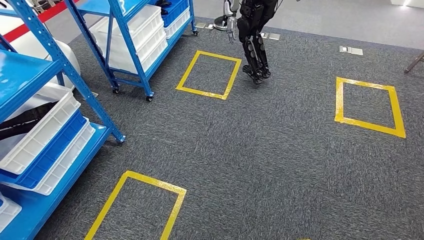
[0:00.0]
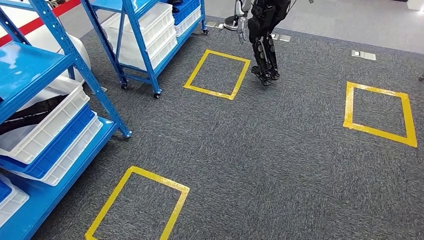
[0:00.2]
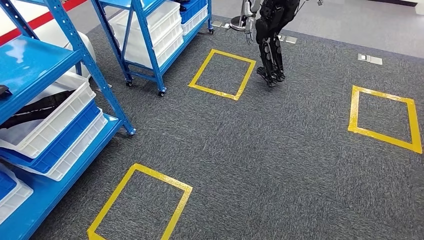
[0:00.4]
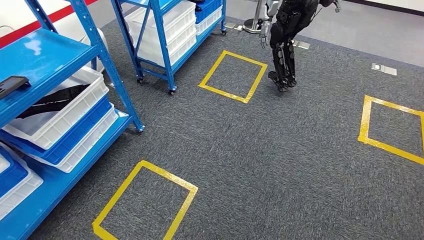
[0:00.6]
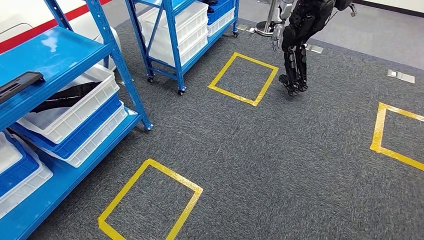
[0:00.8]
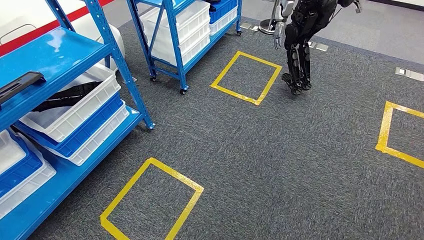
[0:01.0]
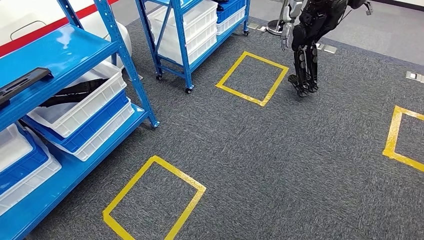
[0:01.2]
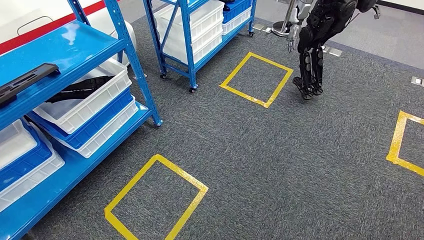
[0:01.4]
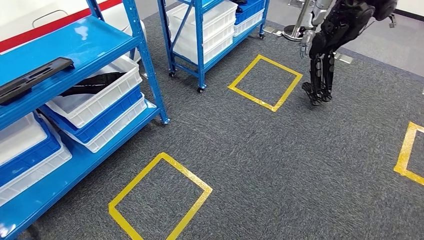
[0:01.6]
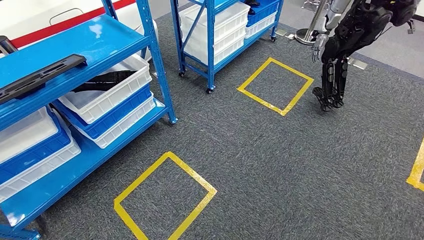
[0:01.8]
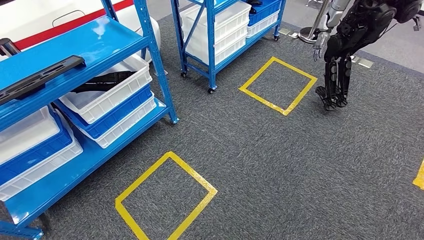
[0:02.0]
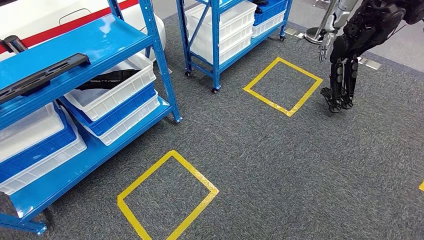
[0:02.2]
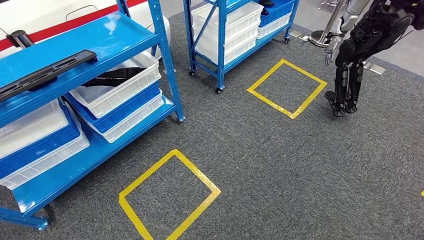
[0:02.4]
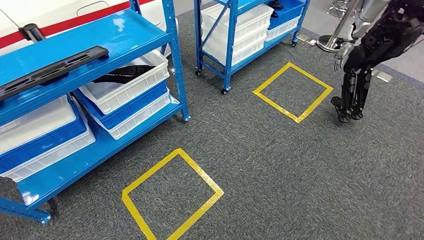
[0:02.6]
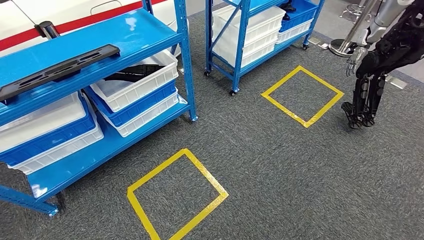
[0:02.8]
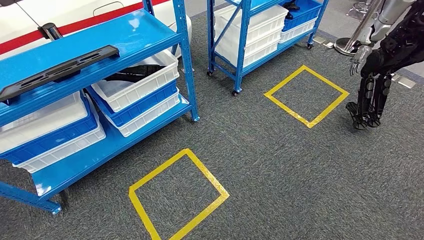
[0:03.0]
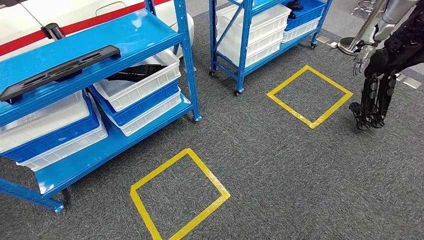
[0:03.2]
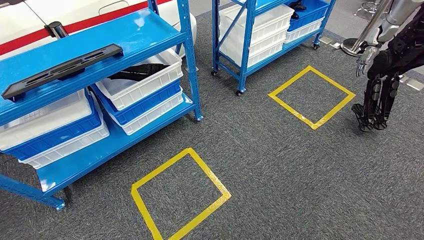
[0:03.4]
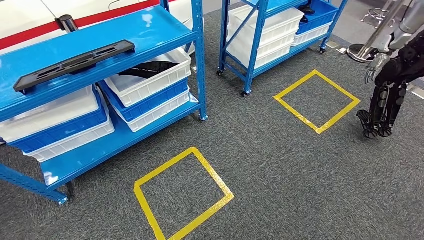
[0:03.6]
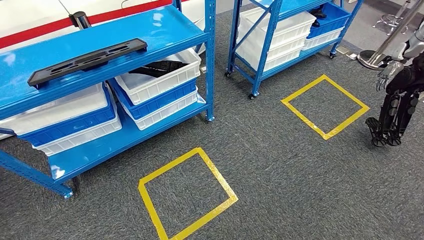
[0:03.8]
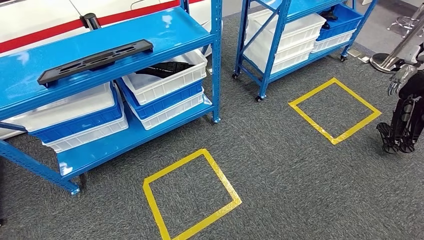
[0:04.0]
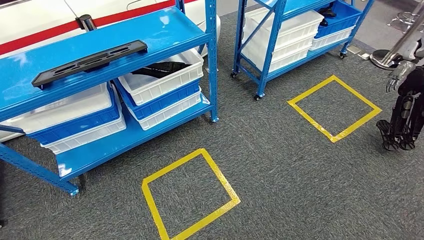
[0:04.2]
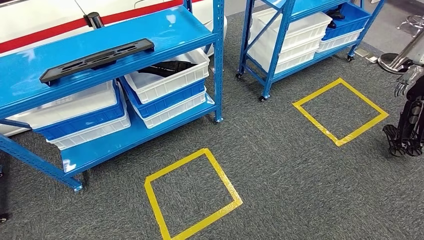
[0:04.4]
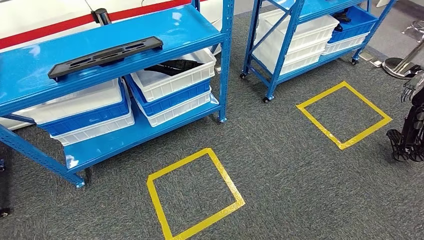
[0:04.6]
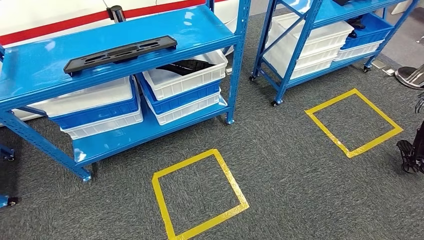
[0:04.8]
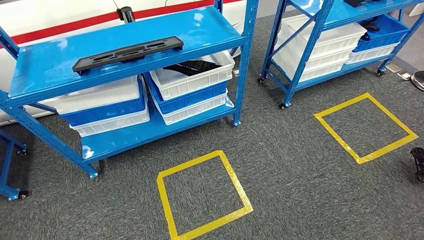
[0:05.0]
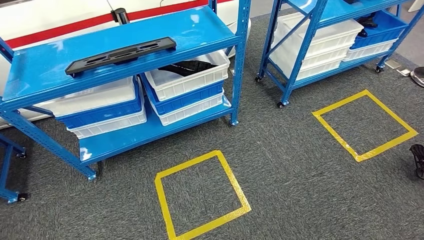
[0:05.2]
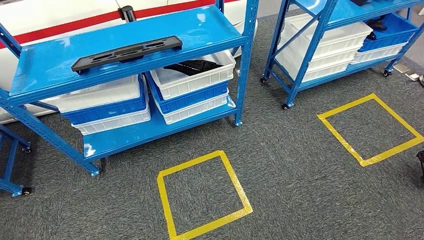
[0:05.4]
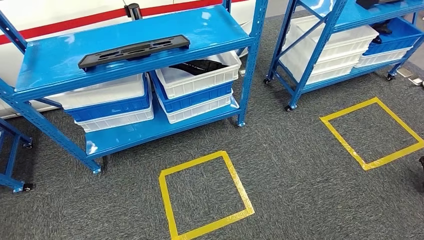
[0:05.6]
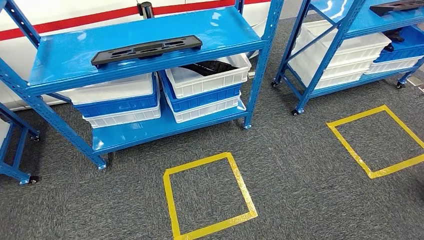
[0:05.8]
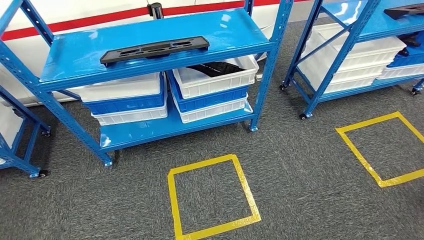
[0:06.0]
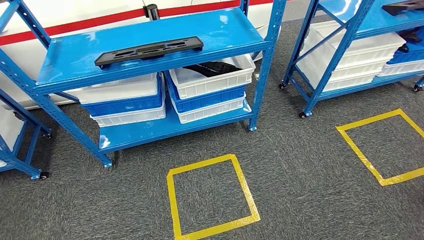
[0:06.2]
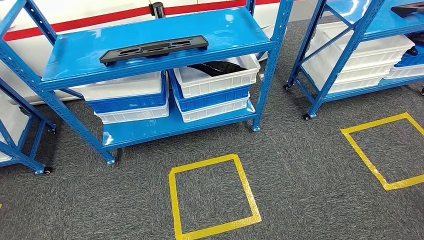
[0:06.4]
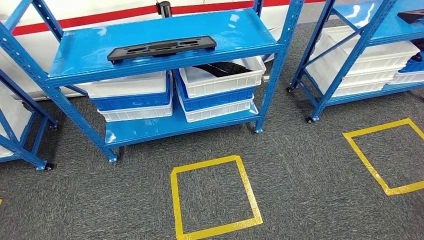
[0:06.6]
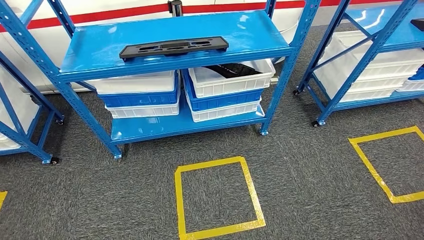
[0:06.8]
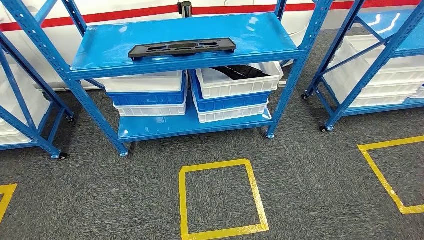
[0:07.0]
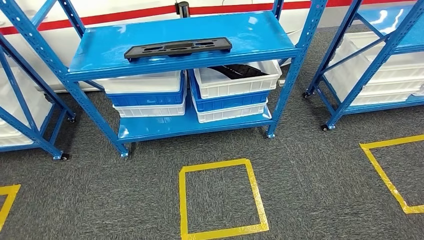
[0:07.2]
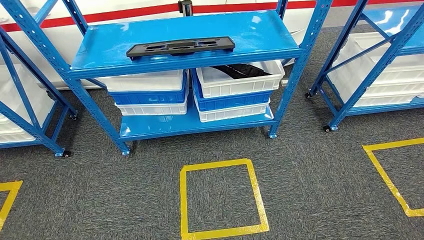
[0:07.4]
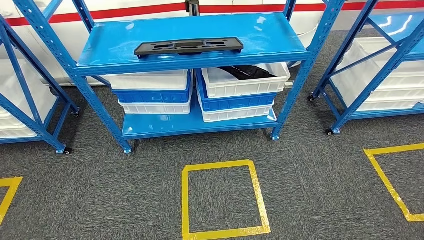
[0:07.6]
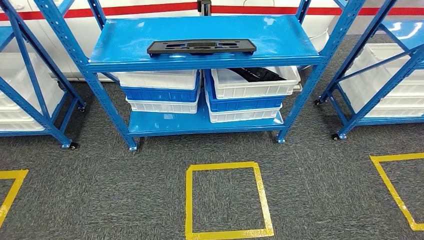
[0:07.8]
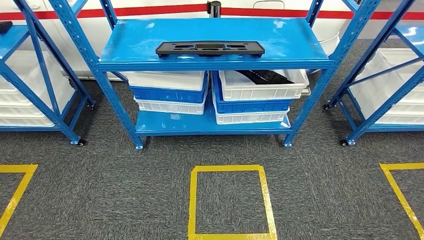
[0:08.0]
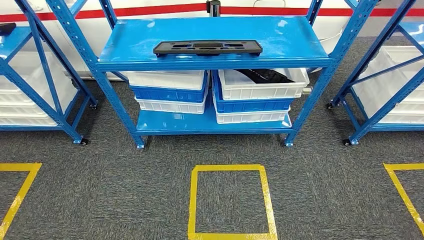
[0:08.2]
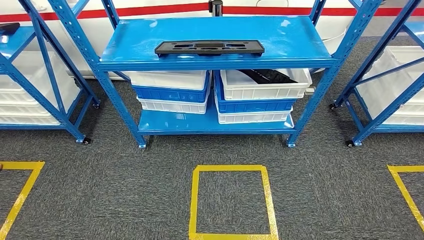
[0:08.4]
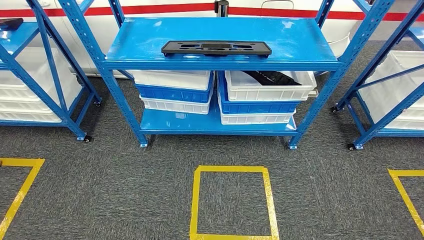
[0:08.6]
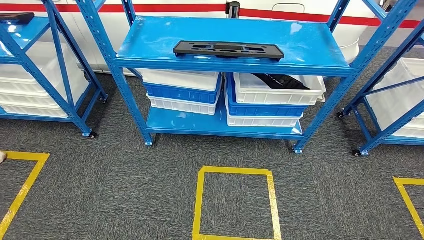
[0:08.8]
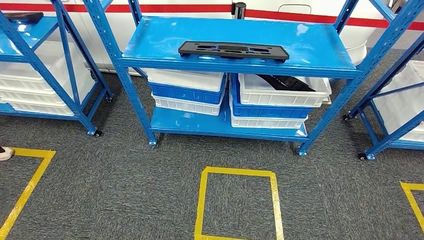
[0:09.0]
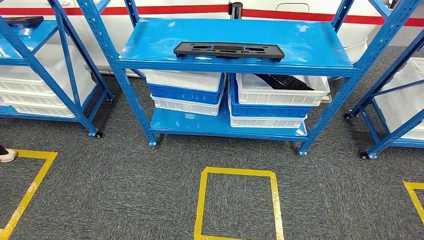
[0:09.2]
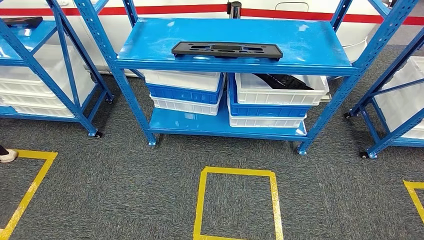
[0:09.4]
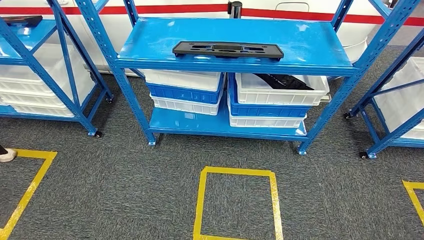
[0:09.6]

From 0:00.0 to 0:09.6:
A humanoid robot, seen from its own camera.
Step, from 0:00.0 to 0:09.6: Move to the initial position of the shelf.

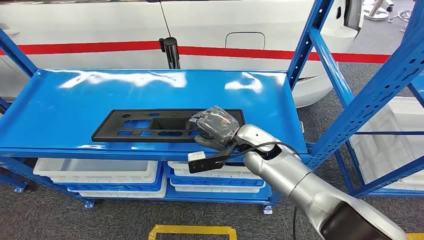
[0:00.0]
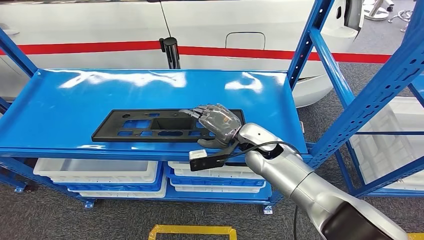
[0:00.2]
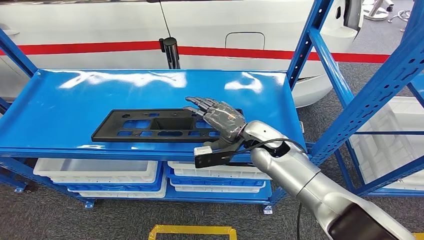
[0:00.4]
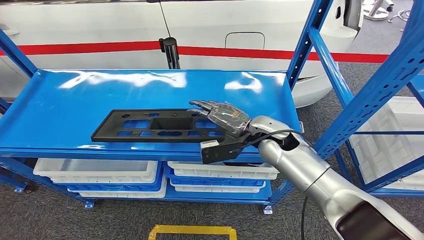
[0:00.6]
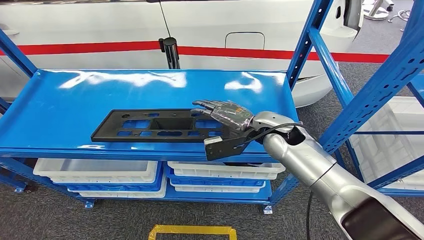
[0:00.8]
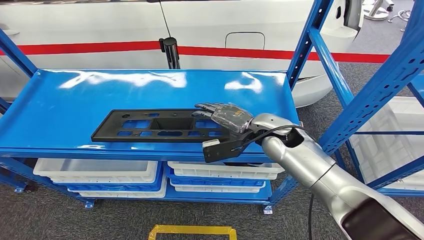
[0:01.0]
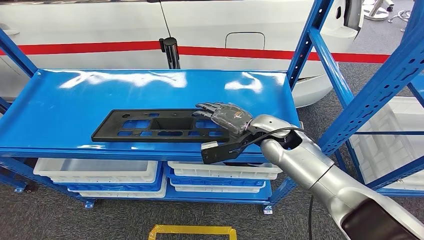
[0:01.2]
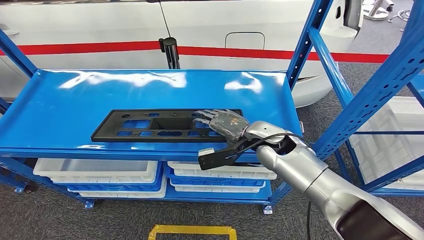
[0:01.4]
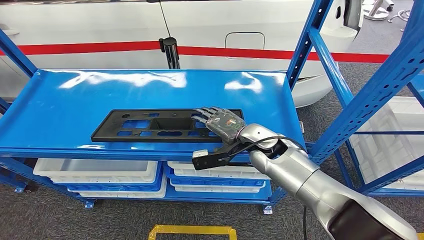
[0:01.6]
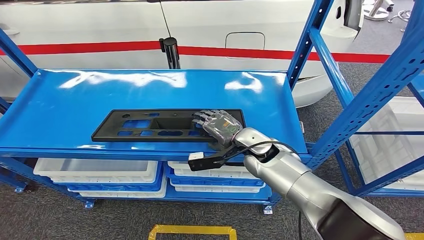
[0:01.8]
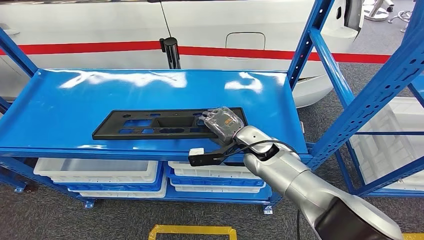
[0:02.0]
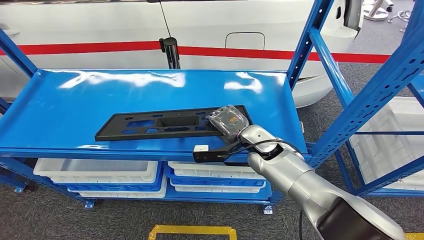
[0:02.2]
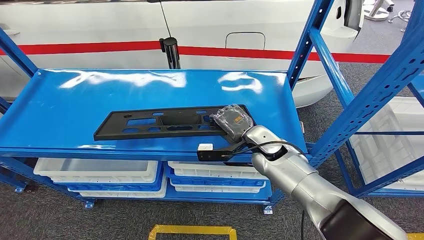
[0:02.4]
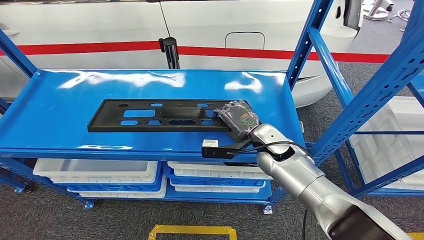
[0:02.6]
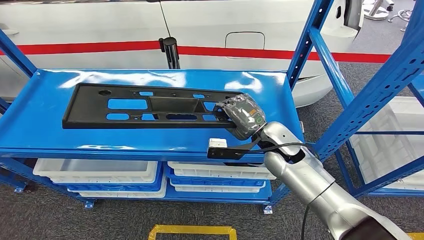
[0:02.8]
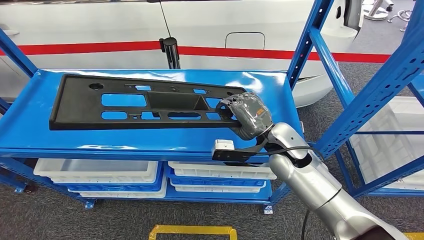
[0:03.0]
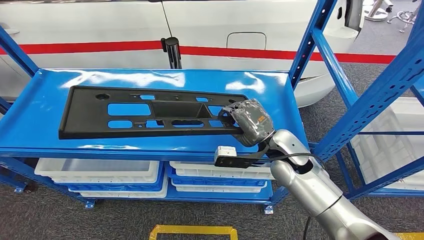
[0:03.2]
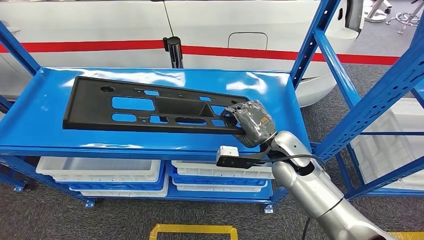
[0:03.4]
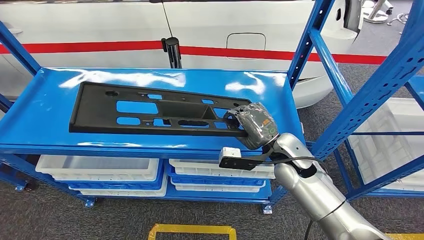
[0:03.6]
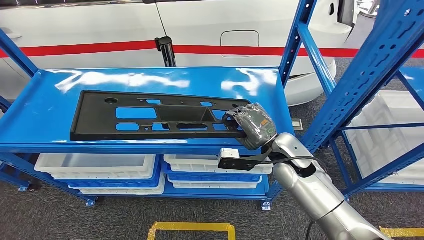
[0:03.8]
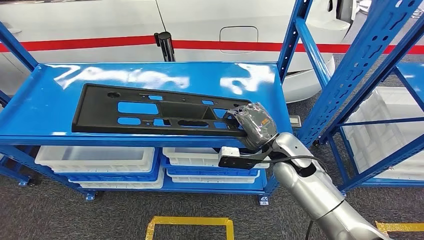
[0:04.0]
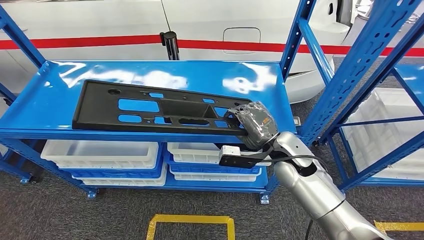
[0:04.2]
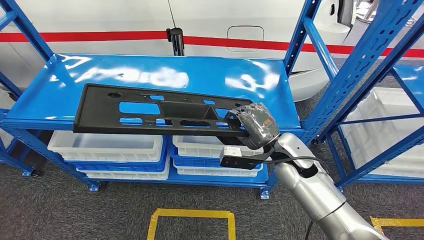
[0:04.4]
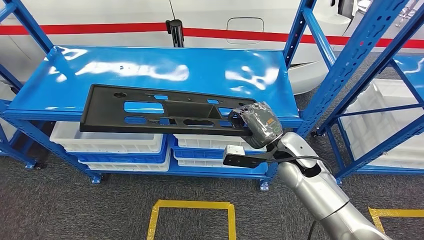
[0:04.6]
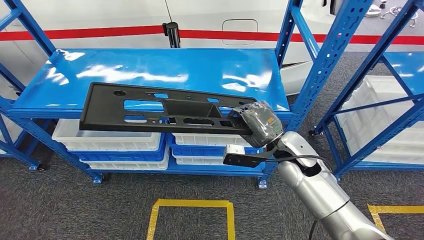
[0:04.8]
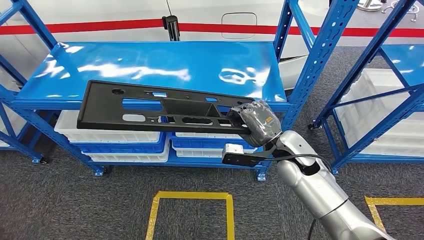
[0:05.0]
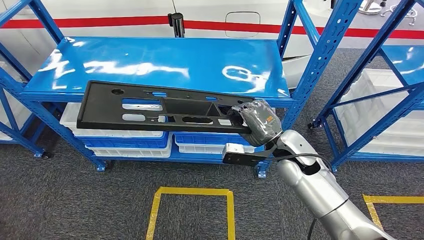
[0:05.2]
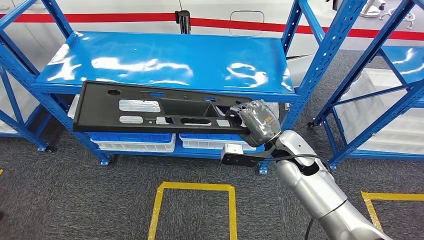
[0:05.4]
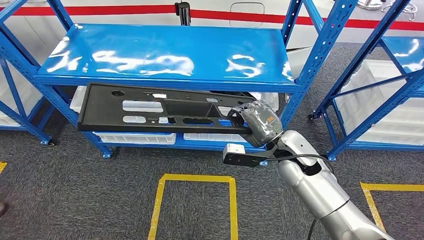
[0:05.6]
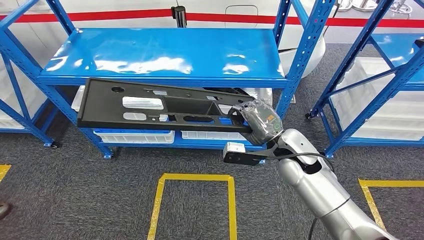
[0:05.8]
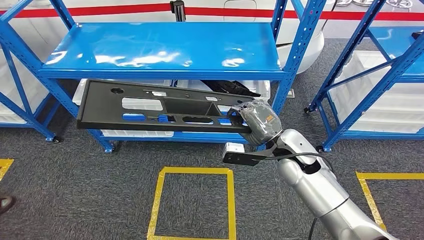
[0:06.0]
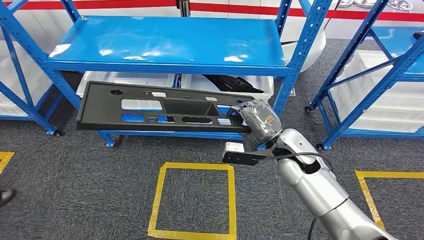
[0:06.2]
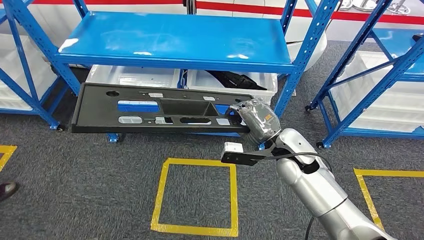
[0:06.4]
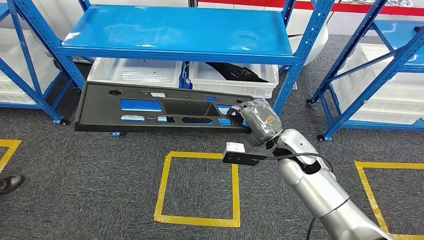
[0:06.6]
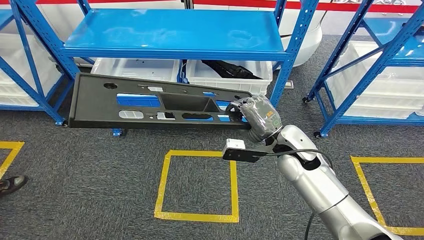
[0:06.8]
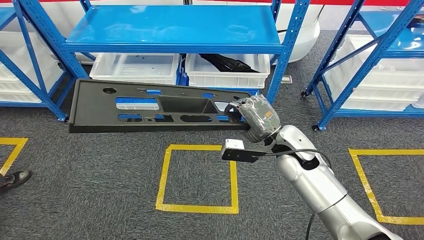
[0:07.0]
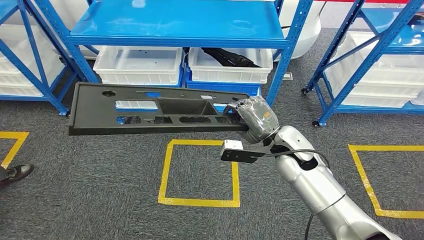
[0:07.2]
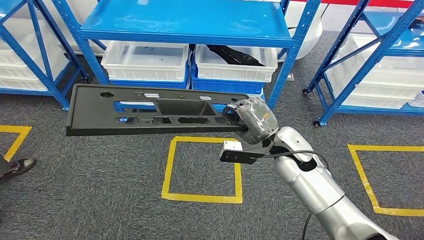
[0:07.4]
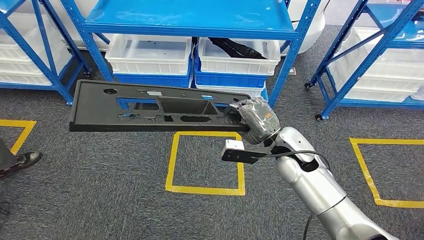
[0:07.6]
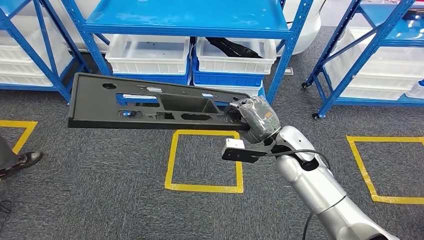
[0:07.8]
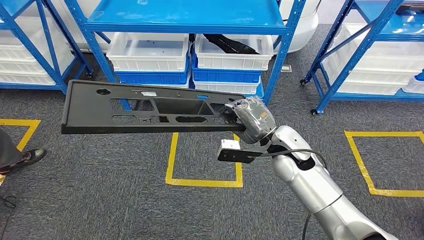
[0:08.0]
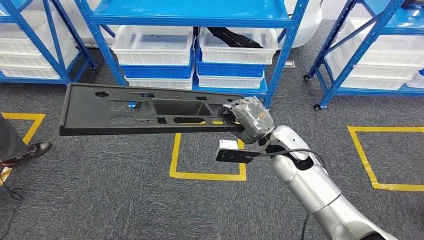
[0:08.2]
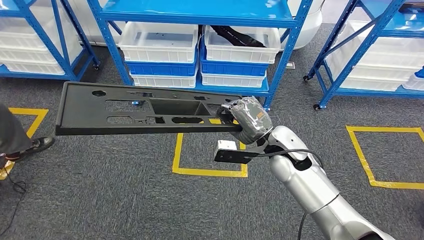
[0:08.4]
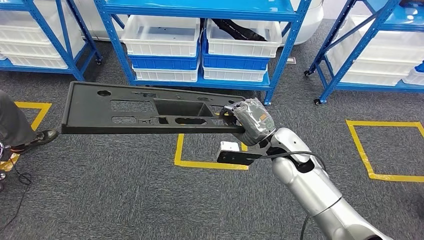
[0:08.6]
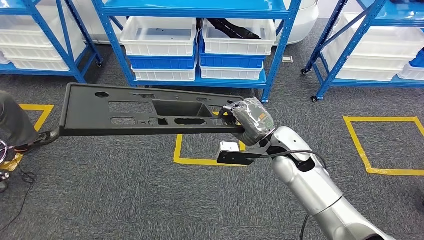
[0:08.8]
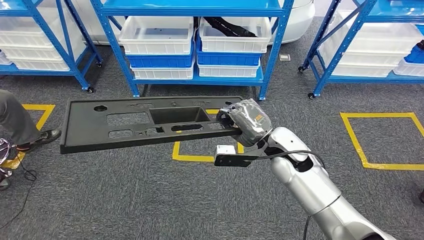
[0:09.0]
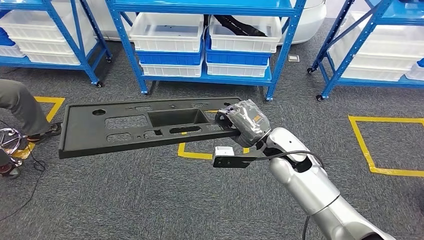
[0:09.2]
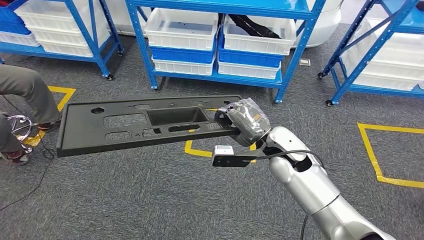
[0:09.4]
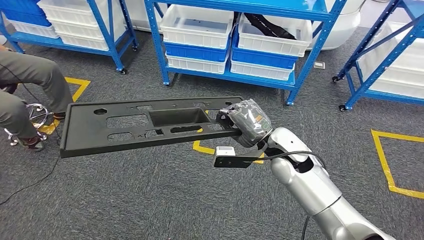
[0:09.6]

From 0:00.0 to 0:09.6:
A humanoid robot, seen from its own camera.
Step, from 0:00.0 to 0:03.0: Pick up the large material from the shelf.
